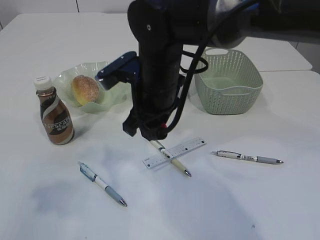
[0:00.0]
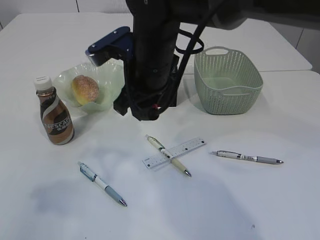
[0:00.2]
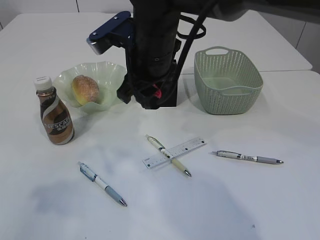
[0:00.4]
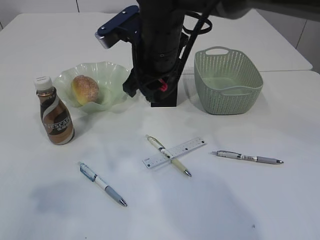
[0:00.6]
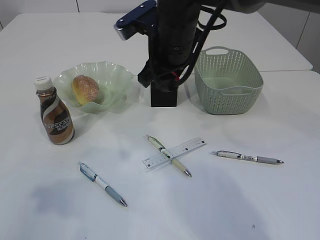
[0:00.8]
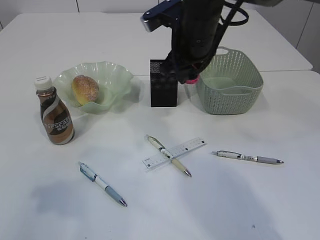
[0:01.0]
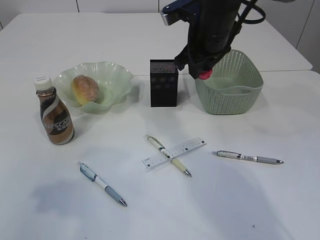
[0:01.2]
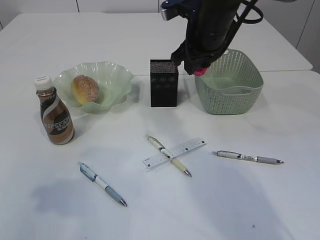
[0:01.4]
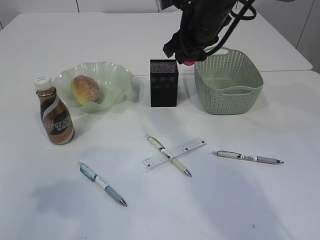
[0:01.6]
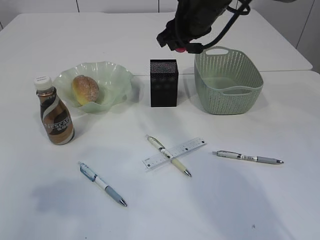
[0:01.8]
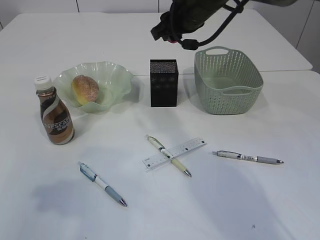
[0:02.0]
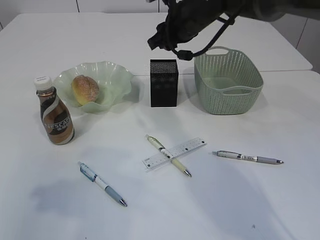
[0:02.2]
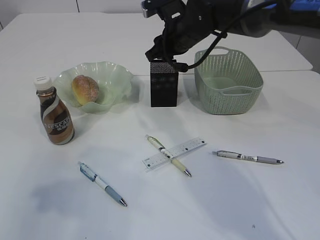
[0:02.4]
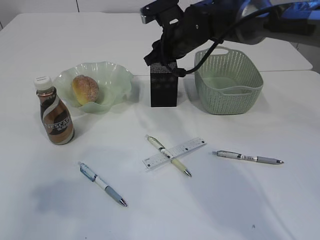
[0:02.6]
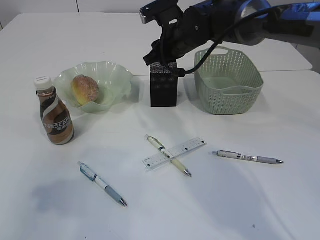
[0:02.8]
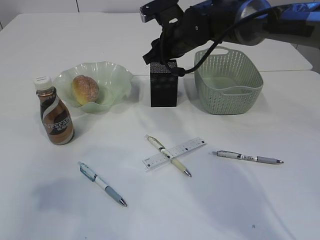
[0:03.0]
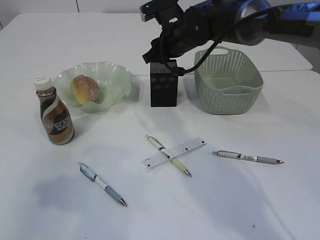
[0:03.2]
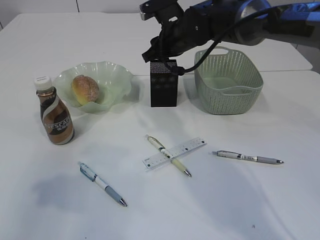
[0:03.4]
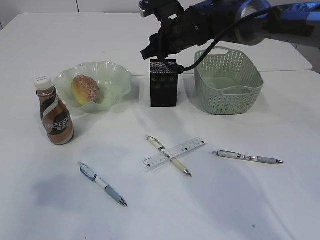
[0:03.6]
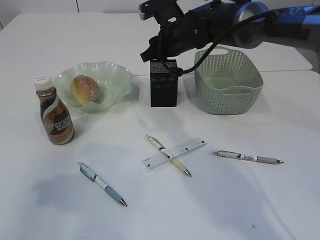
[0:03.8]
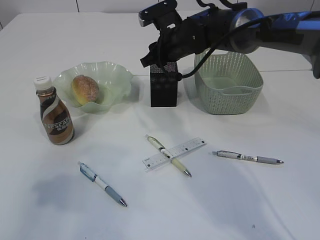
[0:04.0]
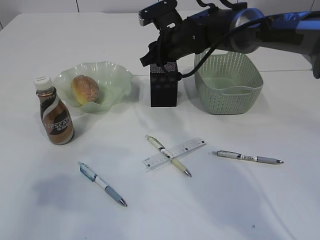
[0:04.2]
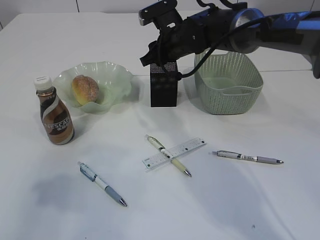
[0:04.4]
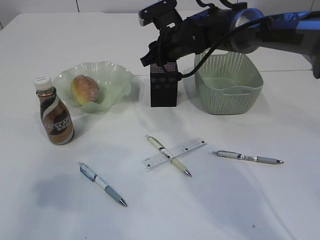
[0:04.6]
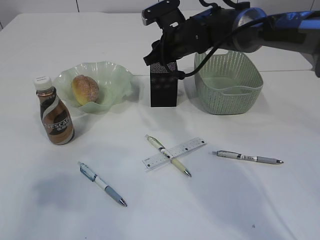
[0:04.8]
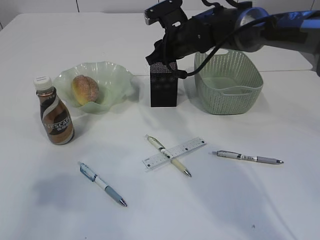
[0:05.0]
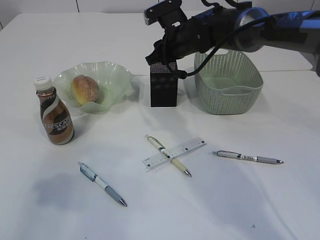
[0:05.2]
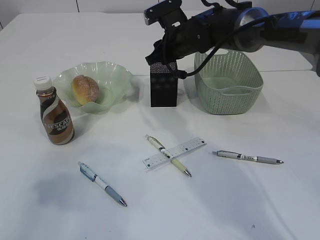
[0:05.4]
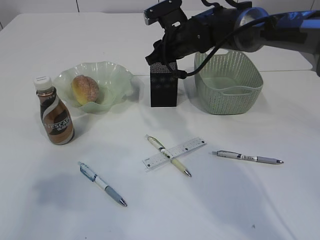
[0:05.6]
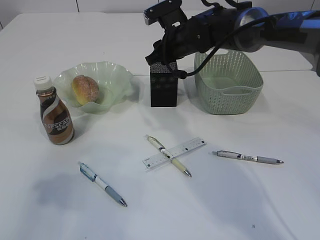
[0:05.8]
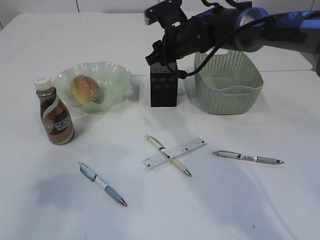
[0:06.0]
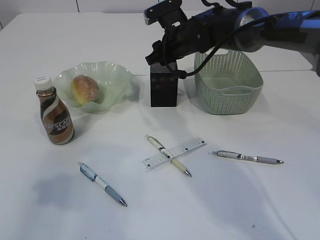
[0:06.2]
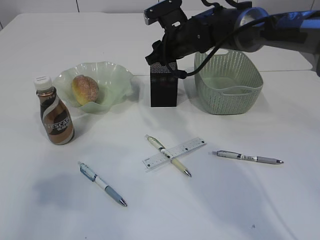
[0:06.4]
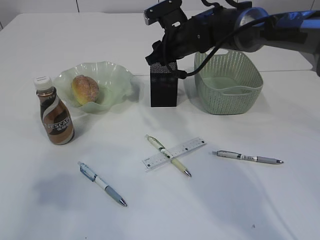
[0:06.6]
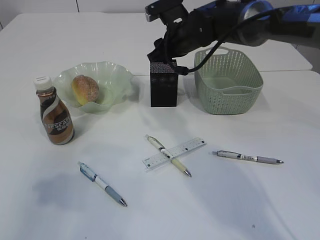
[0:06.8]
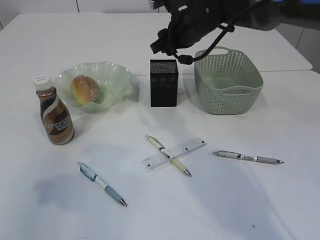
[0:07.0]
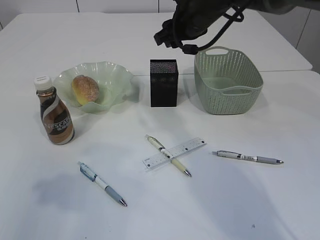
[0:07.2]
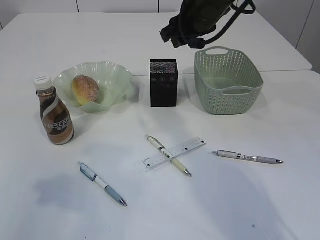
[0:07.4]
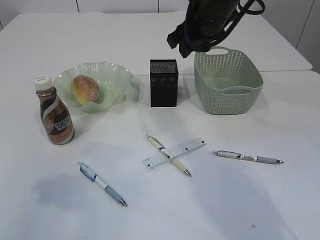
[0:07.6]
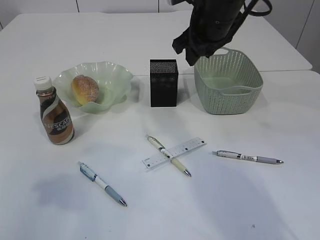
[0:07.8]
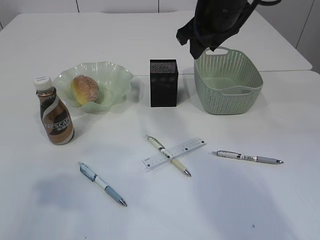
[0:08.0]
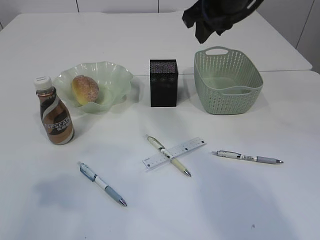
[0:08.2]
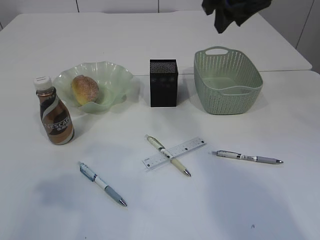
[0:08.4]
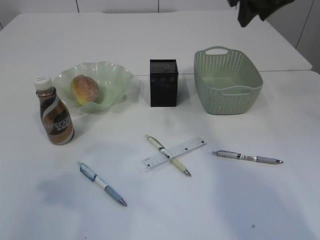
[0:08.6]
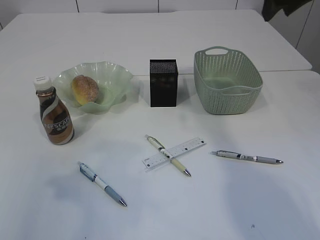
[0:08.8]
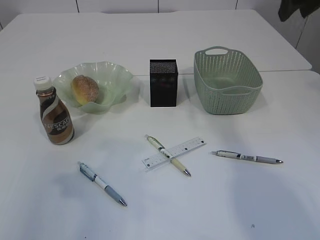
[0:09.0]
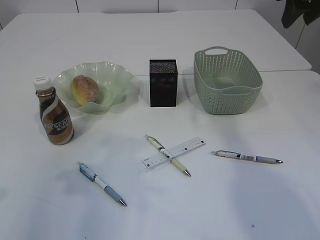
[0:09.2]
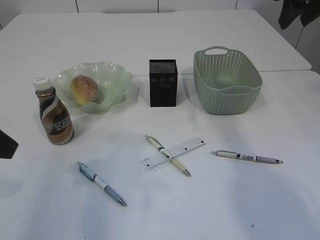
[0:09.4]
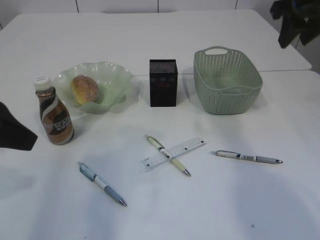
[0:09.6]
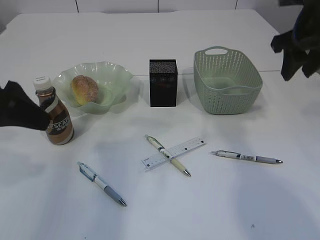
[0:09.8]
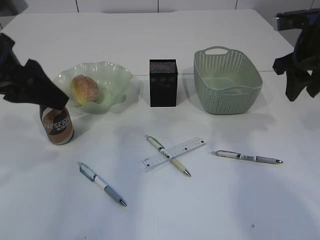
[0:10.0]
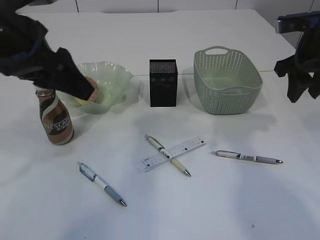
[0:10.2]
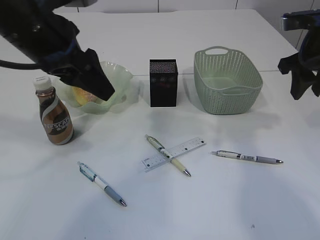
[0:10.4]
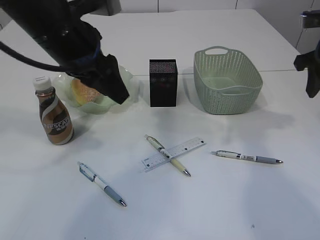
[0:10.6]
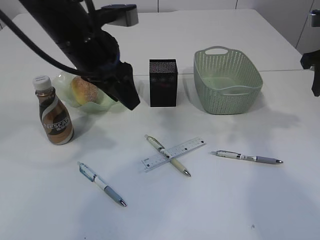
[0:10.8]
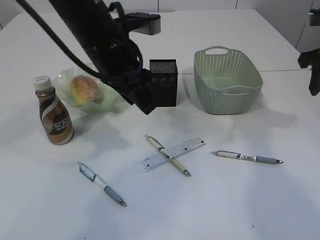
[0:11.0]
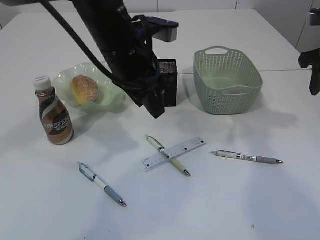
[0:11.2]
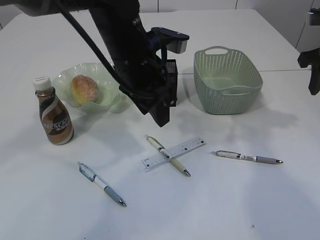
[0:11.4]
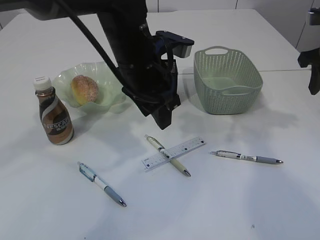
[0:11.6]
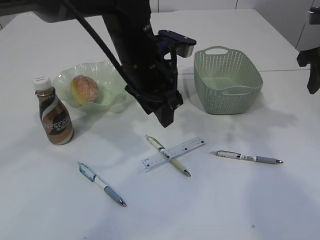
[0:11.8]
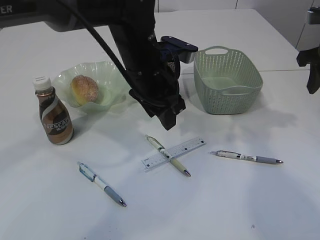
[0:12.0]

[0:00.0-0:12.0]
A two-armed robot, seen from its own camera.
Step, 0:00.2 to 0:07.2: Place the red pencil sharpener into the pen holder.
0:00.0 to 0:01.6: The right gripper is displaced forward, to the right and upward by roughly 15 cm.
0:01.6 to 0:03.0: The right gripper goes roughly 5 cm downward.
0:03.0 to 0:04.4: The grippers make only small movements.
0:04.4 to 0:06.0: Neither gripper changes place.
0:06.0 to 0:07.6: The right gripper heads upward and backward, covering roughly 10 cm.
0:07.6 to 0:09.0: The right gripper goes some 15 cm to the right and upward.
0:09.0 to 0:10.4: The right gripper travels downward by roughly 10 cm. Meanwhile the left gripper moves forward and to the right, approximately 20 cm.
0:10.4 to 0:12.0: The left gripper goes roughly 15 cm to the right and downward.

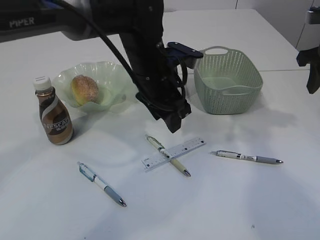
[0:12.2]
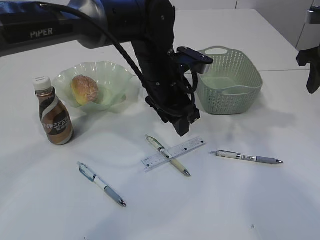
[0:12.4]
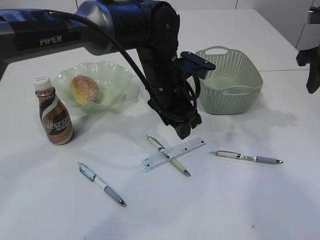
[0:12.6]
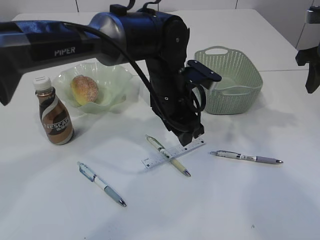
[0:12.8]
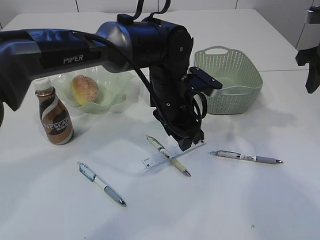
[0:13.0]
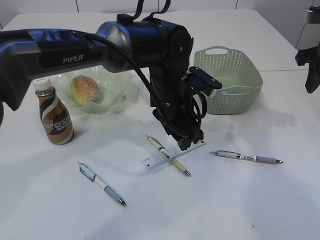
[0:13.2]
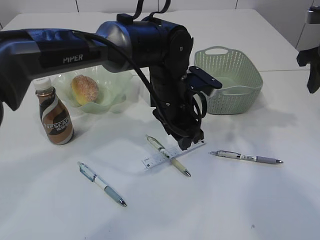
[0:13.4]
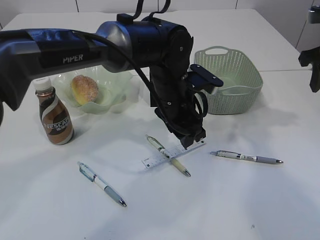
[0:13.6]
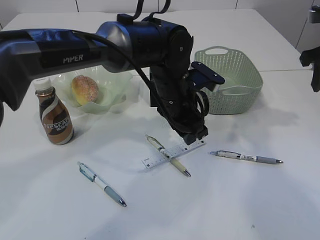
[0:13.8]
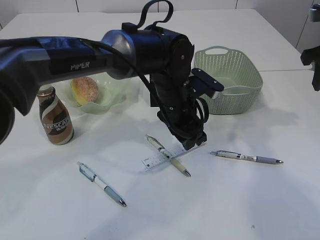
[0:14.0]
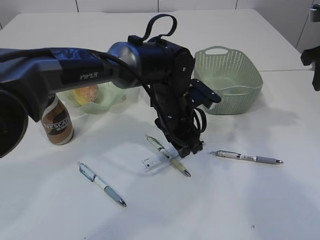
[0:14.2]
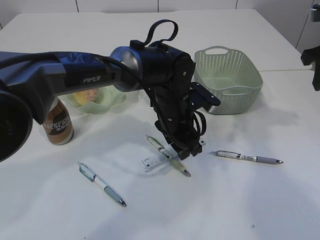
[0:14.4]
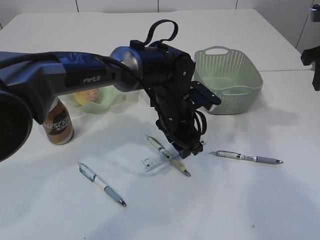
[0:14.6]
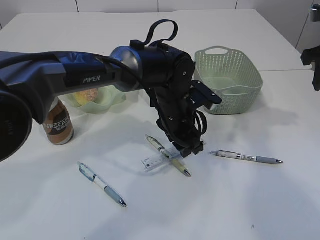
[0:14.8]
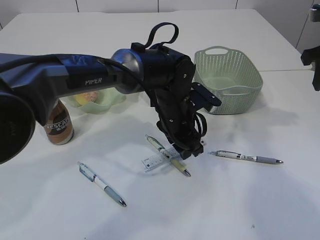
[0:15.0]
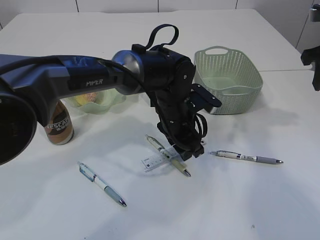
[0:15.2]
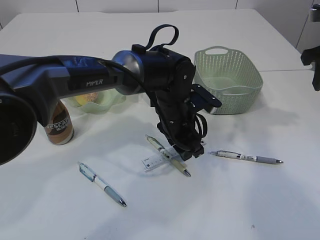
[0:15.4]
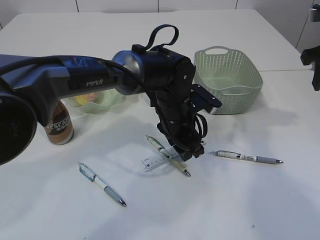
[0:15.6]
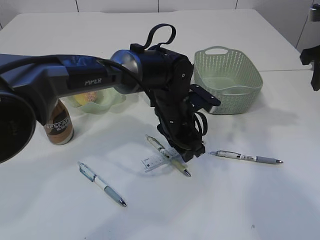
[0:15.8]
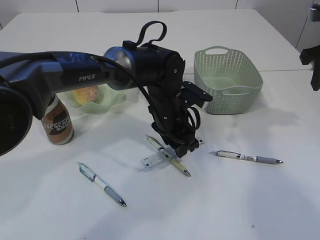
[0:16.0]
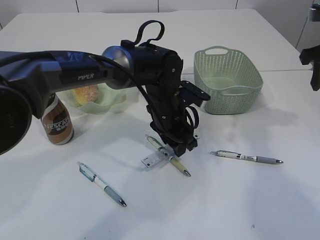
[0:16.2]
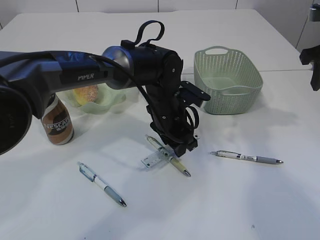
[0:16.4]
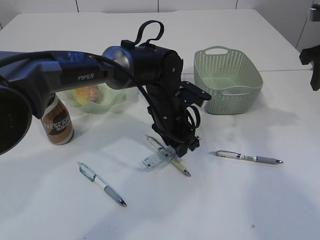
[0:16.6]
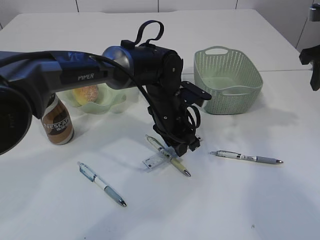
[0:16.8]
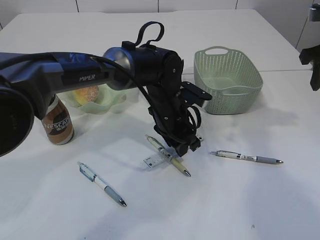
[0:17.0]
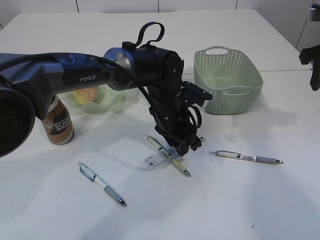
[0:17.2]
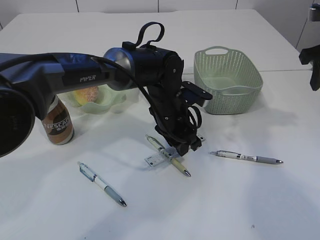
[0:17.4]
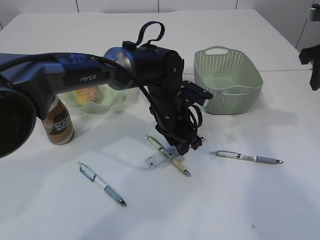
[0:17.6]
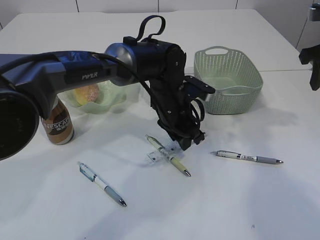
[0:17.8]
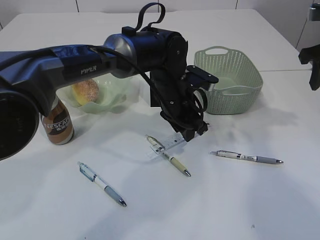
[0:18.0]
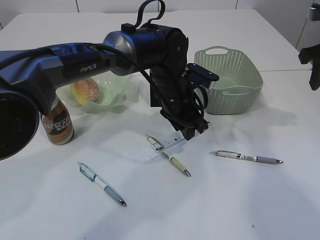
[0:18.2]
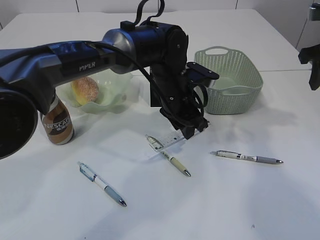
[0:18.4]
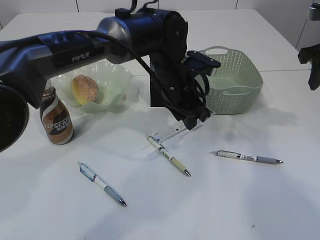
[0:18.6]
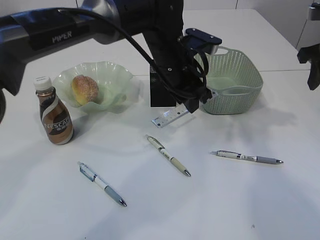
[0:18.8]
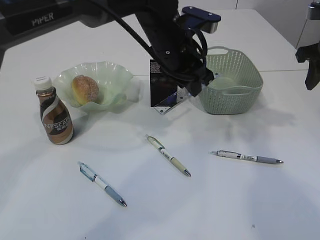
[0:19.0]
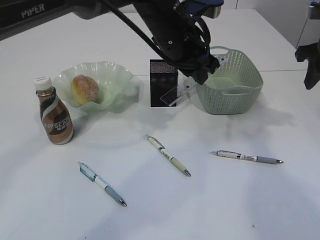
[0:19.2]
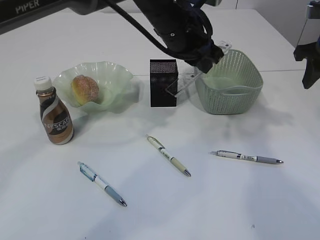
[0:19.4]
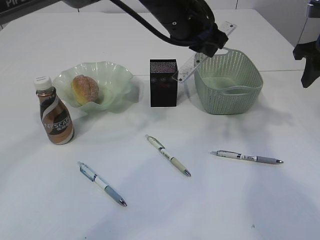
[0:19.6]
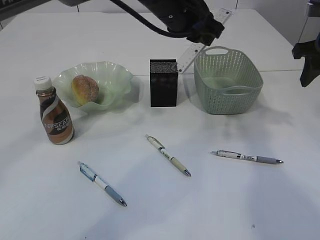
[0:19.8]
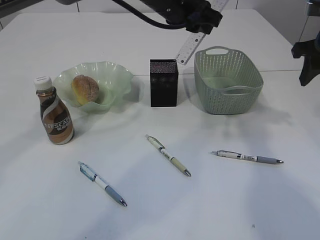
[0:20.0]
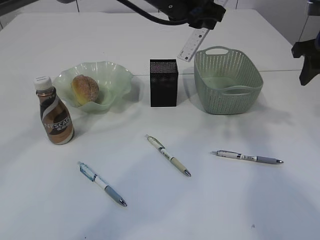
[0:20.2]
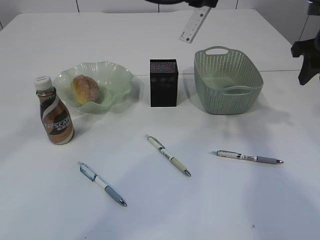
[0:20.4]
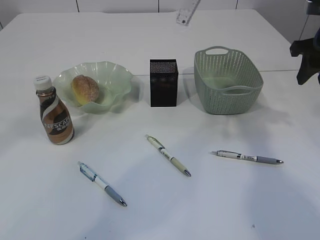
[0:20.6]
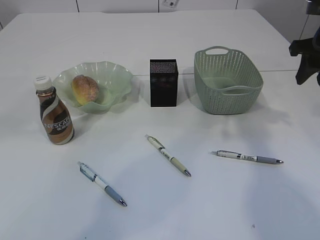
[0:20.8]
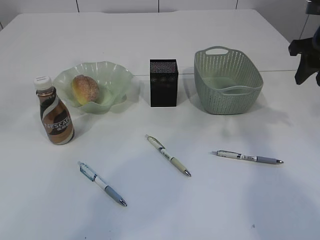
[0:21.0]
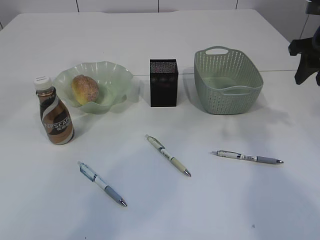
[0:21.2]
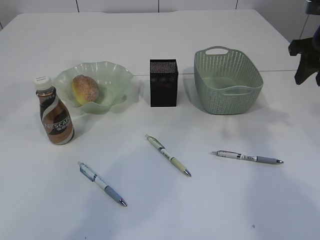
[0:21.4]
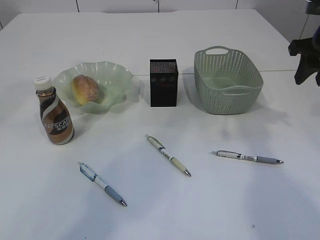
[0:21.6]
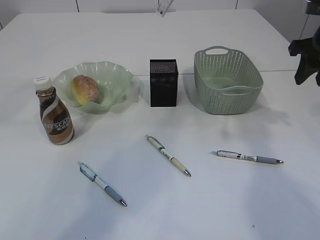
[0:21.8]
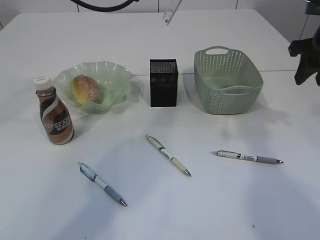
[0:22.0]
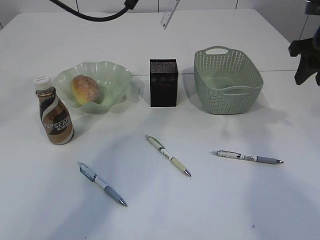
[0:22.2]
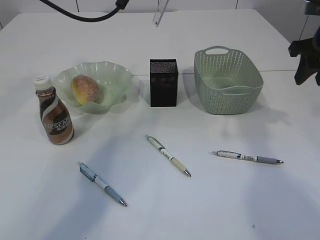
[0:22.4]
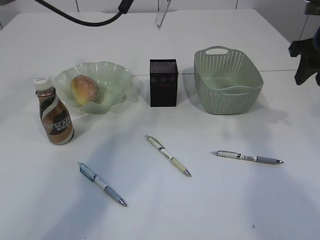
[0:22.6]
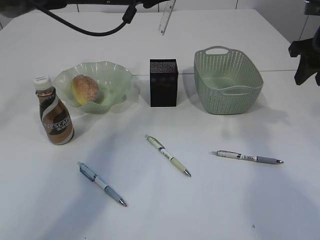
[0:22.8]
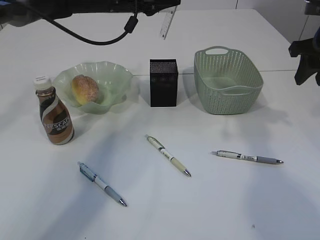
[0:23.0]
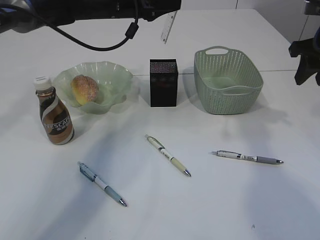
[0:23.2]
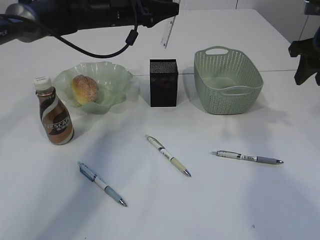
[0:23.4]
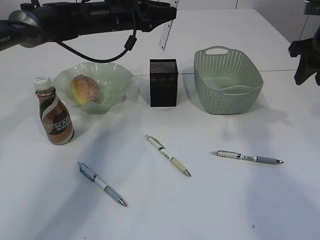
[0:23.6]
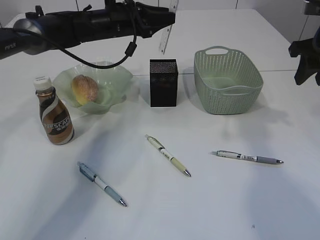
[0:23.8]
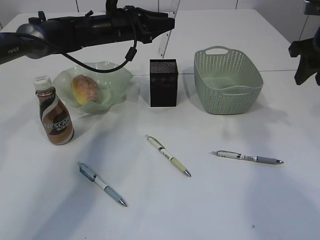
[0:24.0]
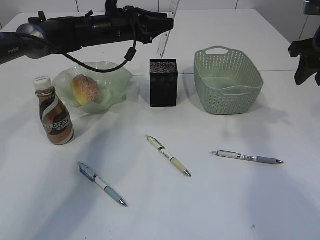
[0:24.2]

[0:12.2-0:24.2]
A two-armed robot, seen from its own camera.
Step, 0:12.2 to 0:18.8: pick up the ruler.
0:12.2 to 0:13.8: The left gripper moves some 5 cm.
0:13.8 to 0:18.2: The grippers move only a little.
0:18.2 to 0:19.8: The left gripper shifts about 15 cm upward.
0:19.8 to 0:21.2: The left gripper shifts about 15 cm upward and to the left.
0:21.2 to 0:22.6: The left gripper moves downward and forward, roughly 15 cm.
0:22.6 to 0:24.2: The left gripper travels downward by about 10 cm.
